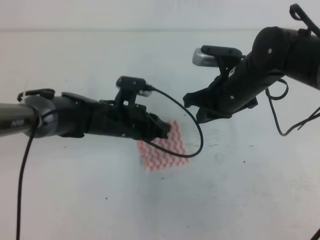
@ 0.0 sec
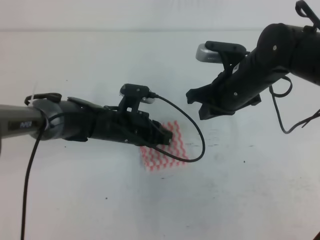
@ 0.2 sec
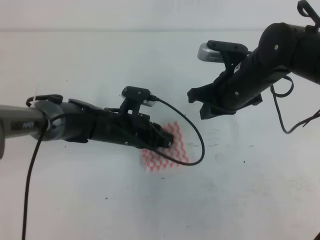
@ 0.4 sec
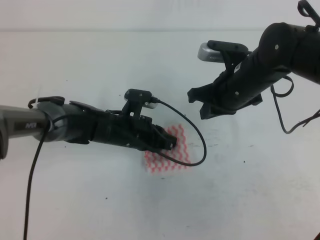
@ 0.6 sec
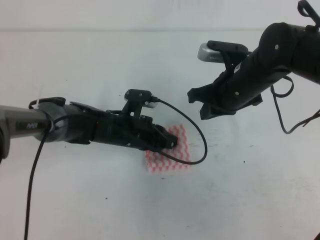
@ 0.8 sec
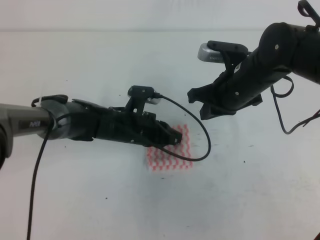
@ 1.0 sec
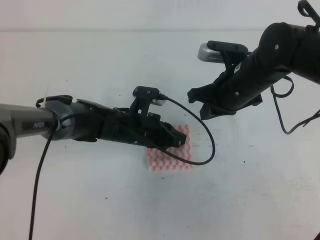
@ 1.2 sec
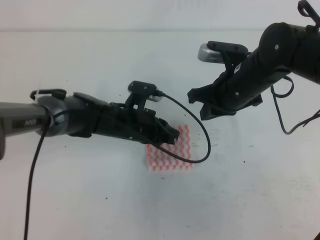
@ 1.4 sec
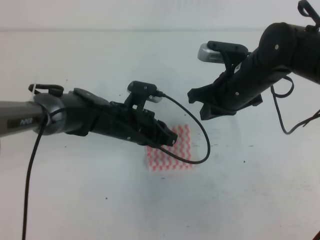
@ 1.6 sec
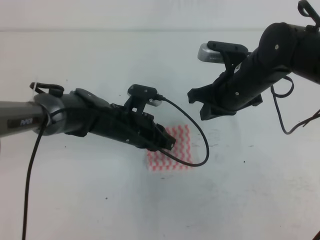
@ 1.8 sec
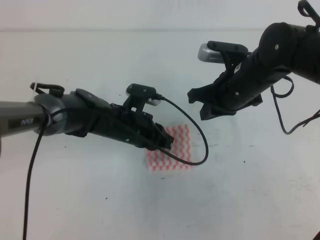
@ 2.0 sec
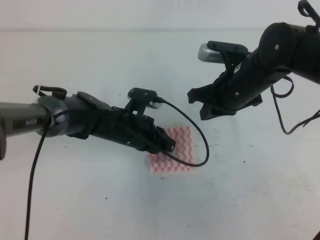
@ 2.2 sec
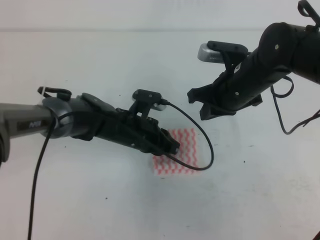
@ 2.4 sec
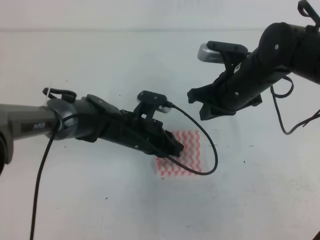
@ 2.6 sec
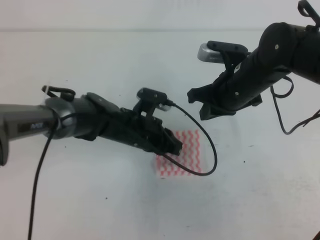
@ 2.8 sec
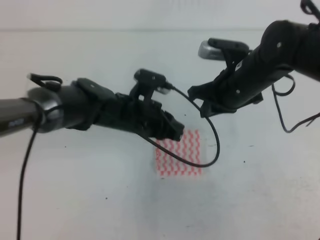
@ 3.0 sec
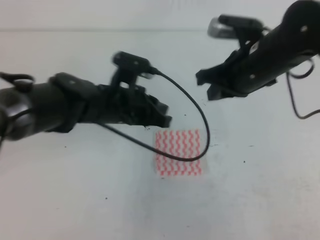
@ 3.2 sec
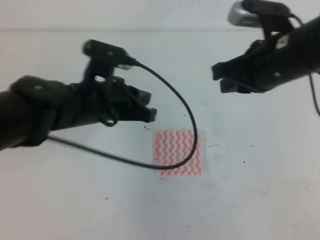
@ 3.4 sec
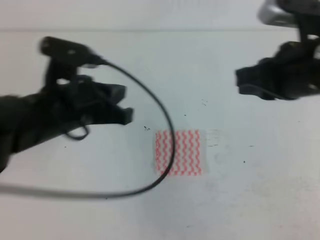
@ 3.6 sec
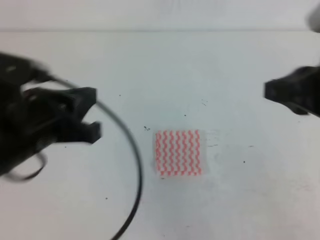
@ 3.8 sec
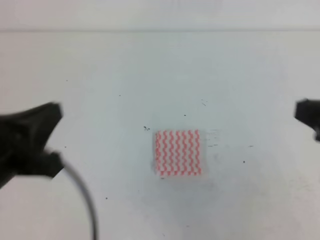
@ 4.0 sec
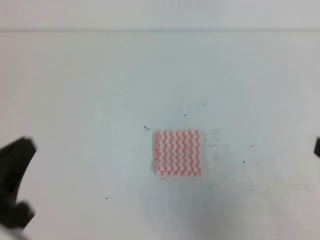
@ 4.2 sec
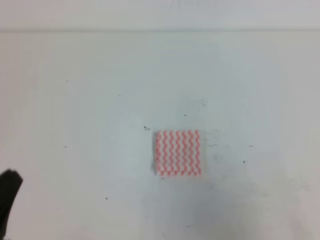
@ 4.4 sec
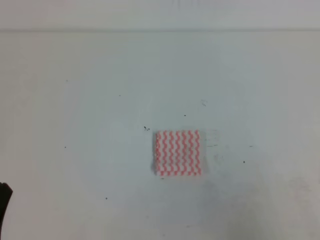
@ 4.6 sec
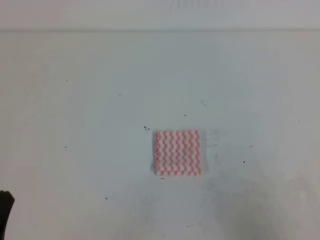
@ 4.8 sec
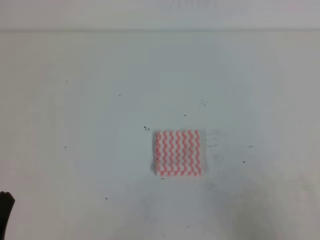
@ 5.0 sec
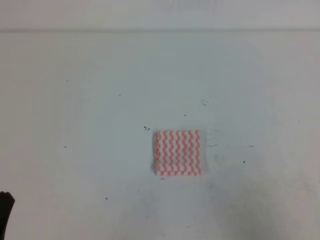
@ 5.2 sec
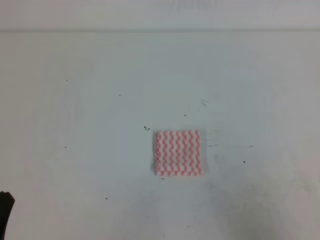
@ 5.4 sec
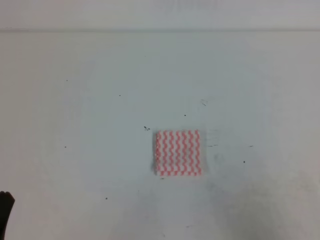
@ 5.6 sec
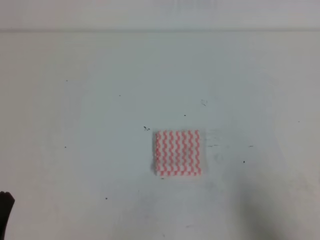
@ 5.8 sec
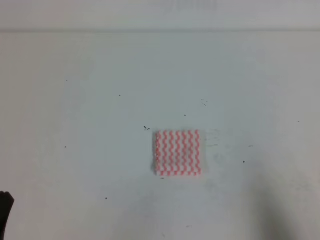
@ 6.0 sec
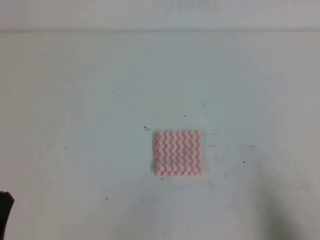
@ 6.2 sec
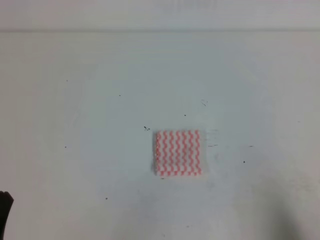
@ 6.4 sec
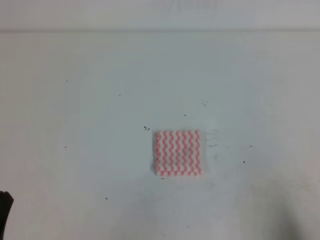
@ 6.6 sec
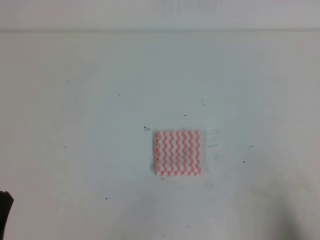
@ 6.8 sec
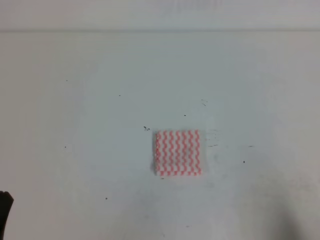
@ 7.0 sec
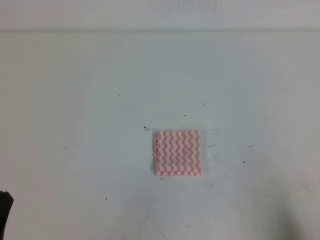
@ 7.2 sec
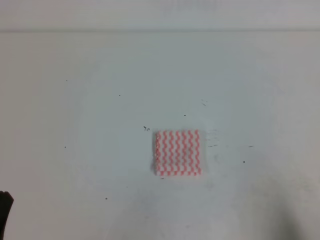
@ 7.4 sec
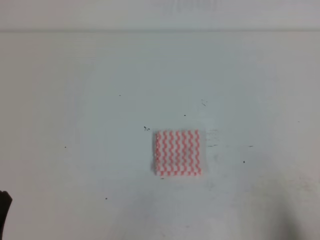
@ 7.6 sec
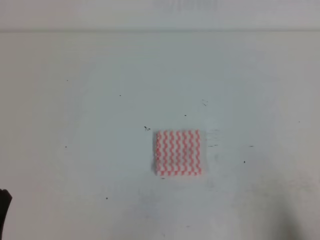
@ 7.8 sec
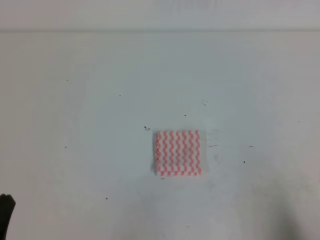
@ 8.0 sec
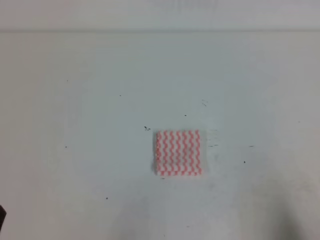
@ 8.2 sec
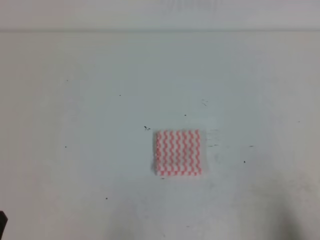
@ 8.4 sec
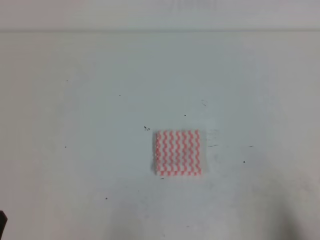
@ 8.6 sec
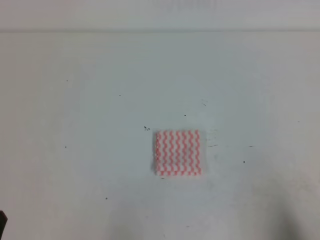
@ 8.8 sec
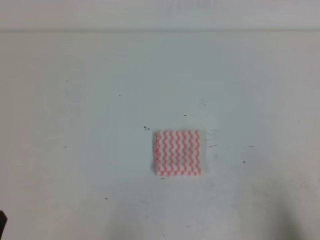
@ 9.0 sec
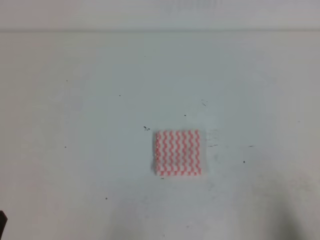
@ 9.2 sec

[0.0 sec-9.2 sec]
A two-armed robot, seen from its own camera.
Step, 0.0 sec to 9.2 sec: Fold the towel.
0.0 sec to 3.0 sec: The grippers move only a little.
3.0 sec to 4.6 sec: The left gripper travels backward and to the left by roughly 35 cm. Meanwhile the right gripper goes about 30 cm backward and to the right.
4.6 sec to 6.2 sec: The right gripper moves downward, some 5 cm.
